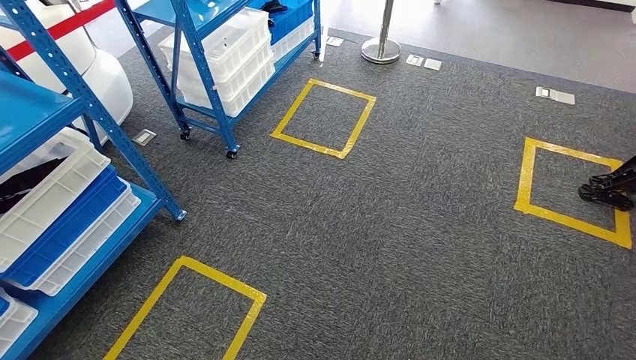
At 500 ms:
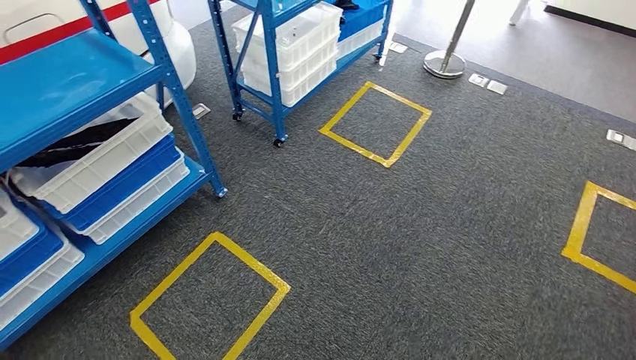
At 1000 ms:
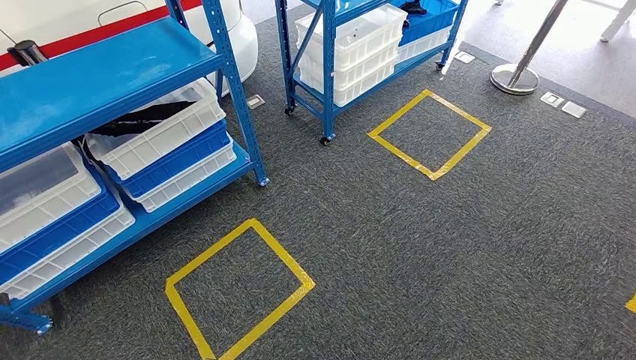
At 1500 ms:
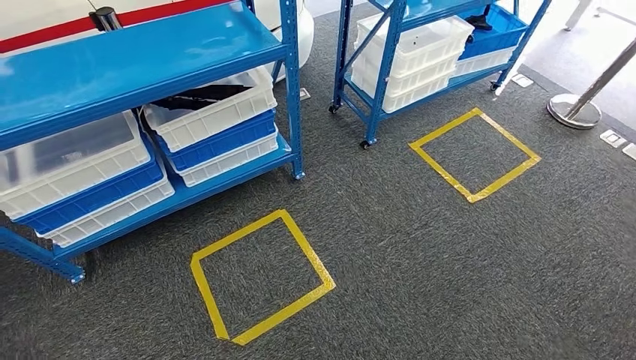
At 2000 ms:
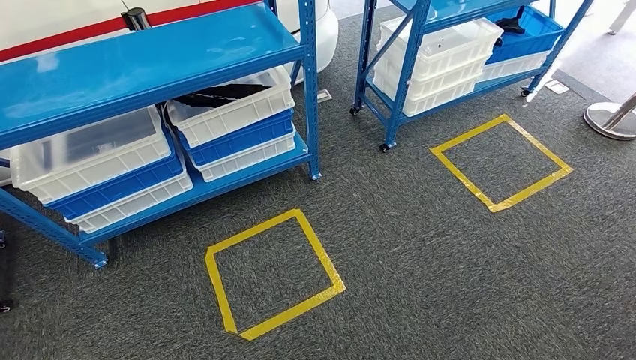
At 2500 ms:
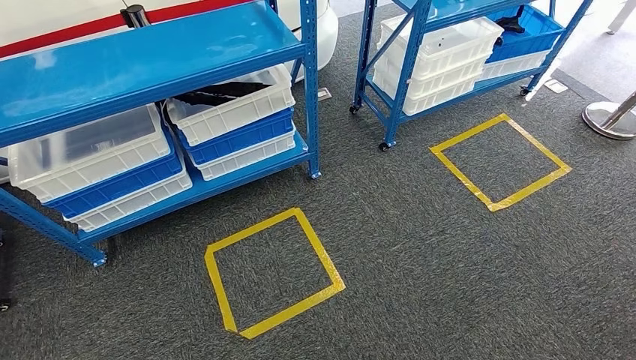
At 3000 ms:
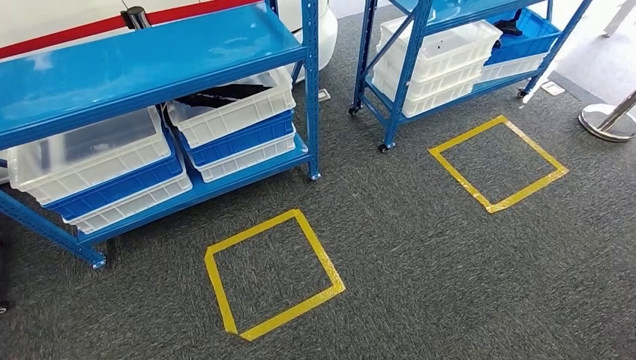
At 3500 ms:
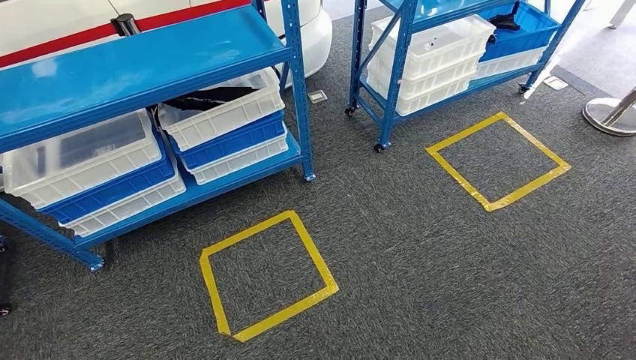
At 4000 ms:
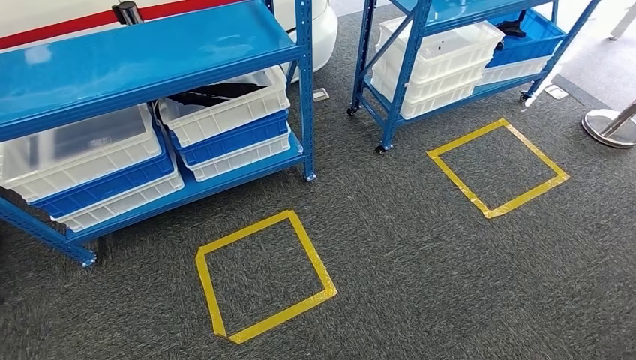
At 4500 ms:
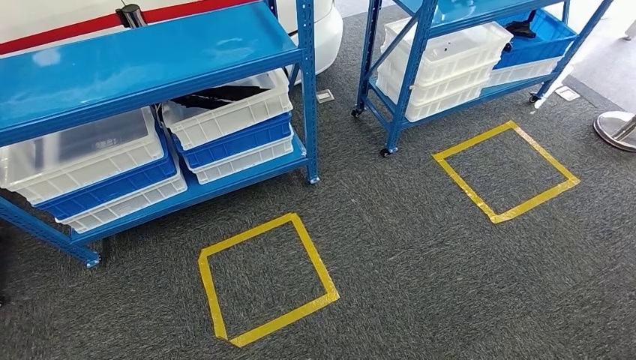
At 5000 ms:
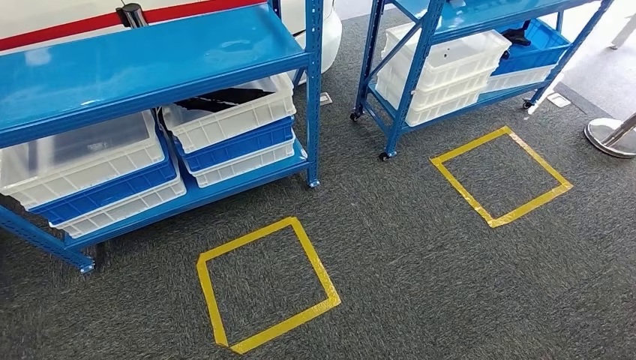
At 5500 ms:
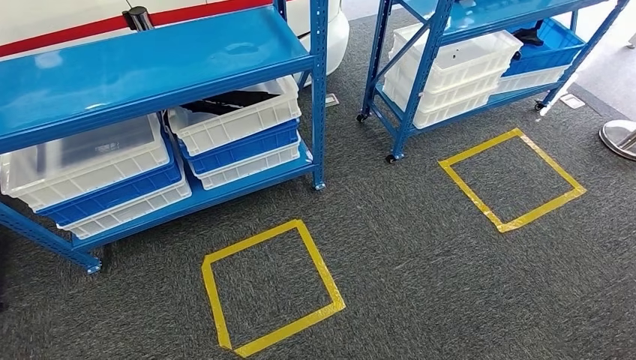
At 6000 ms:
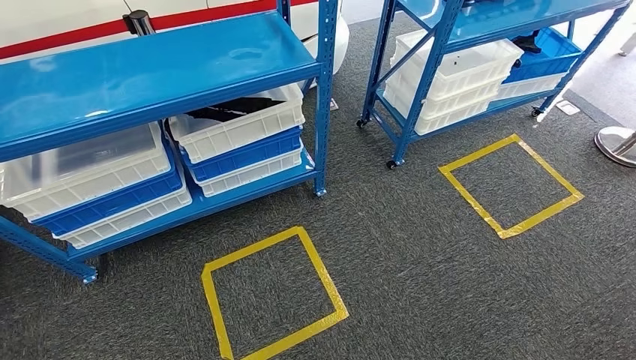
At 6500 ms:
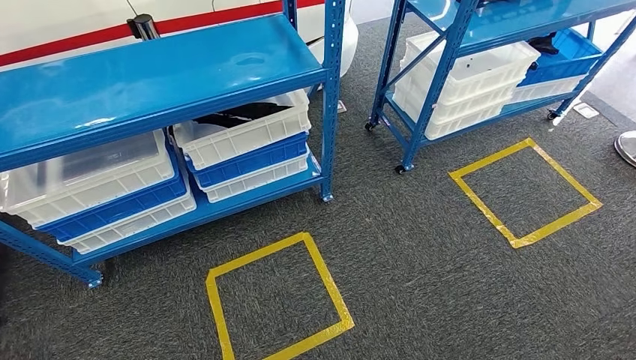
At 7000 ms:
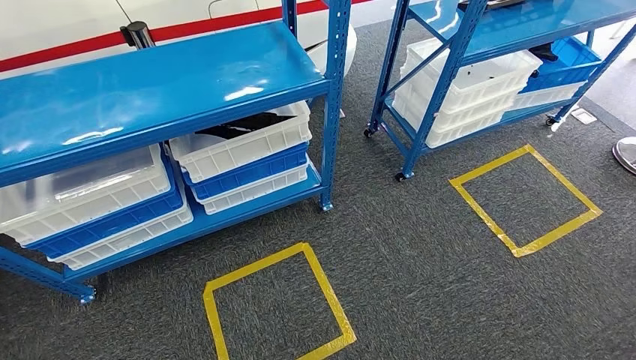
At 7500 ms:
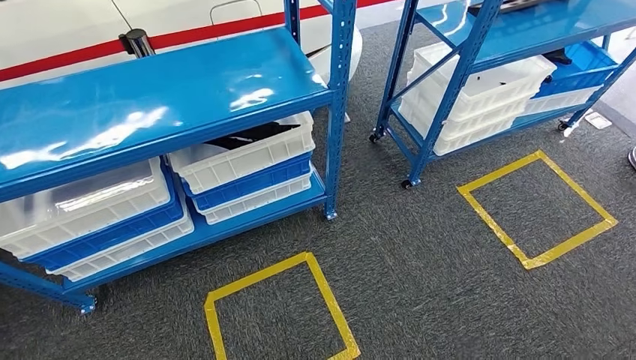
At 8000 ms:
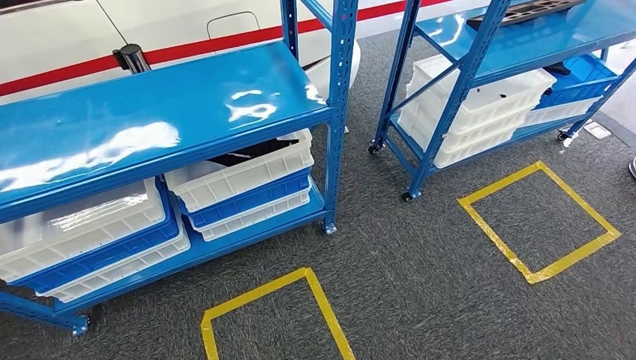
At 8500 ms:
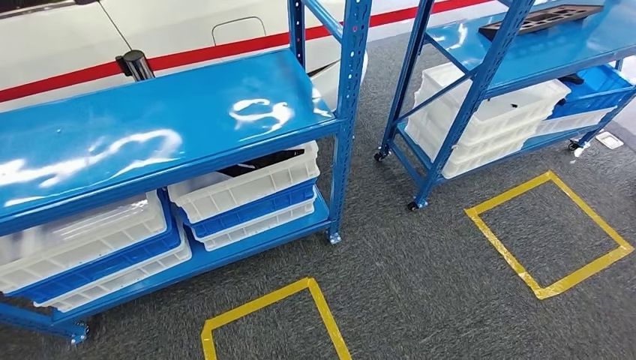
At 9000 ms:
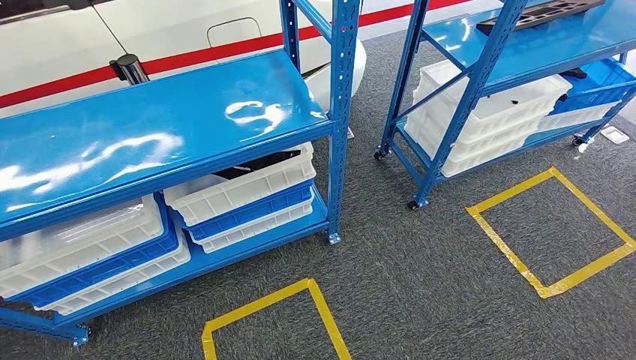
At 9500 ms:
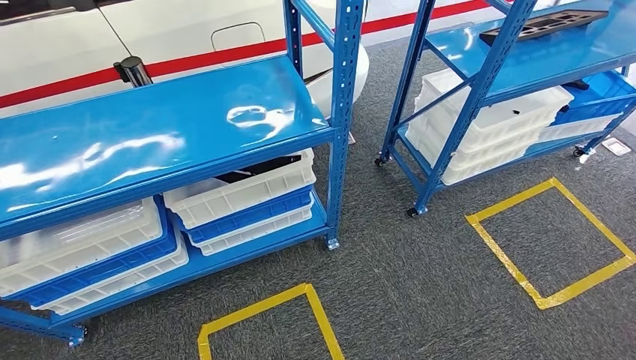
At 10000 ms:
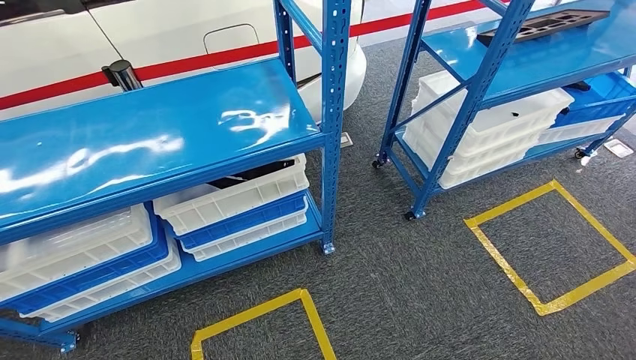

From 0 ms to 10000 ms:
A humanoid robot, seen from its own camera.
From 2000 ms to 4000 ms: Neither hand changes place.

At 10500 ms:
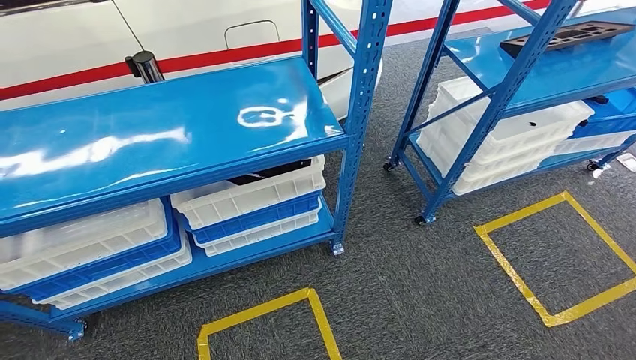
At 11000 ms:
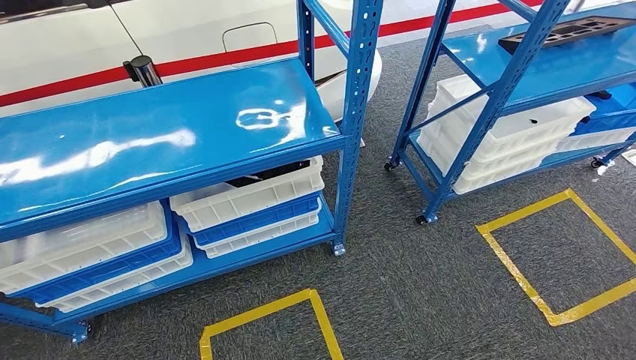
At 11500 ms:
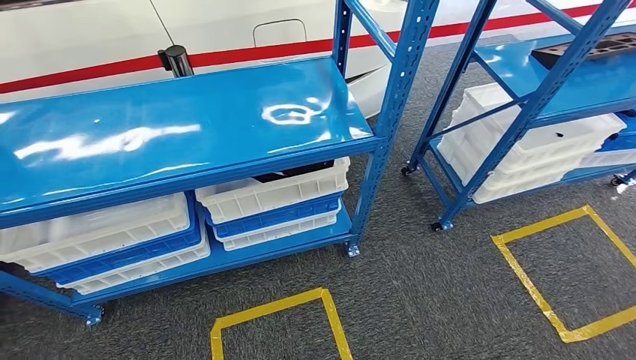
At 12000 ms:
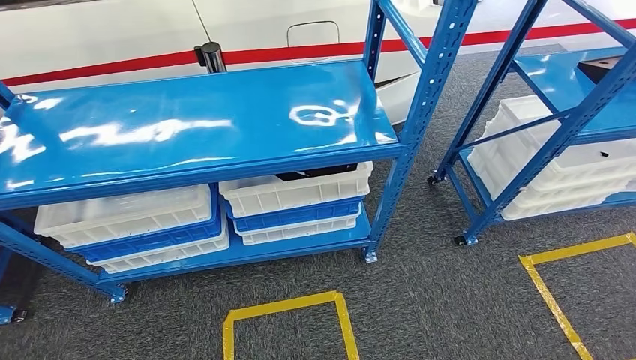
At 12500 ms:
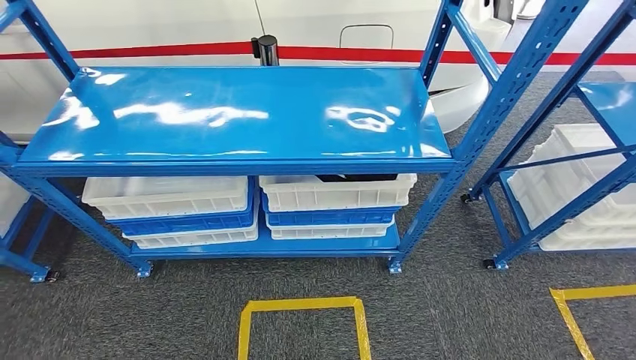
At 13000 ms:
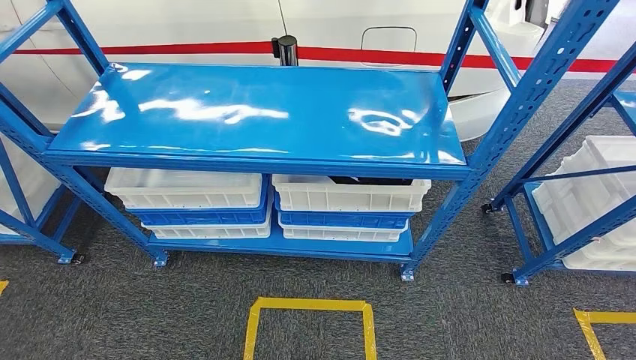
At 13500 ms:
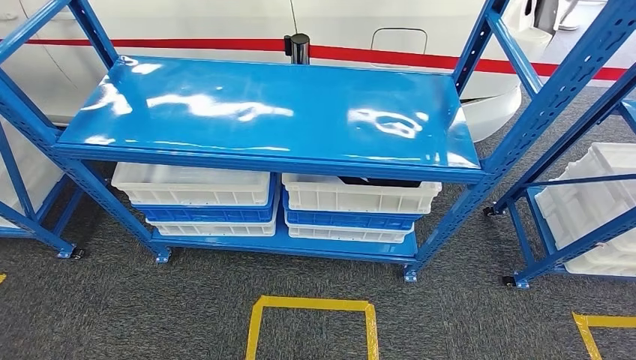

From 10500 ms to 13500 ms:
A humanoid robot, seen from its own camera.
Step, from 10500 ms to 13500 ms: Return to the initial position at the shelf.
